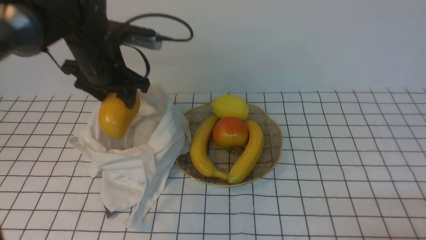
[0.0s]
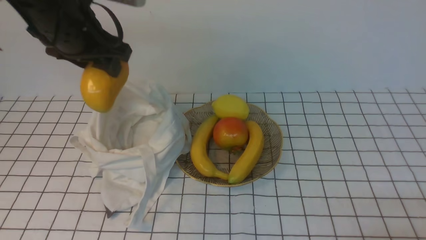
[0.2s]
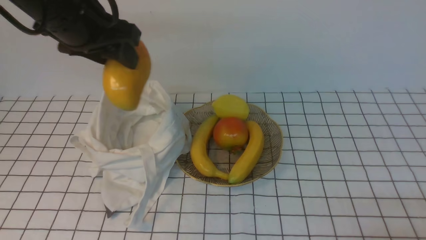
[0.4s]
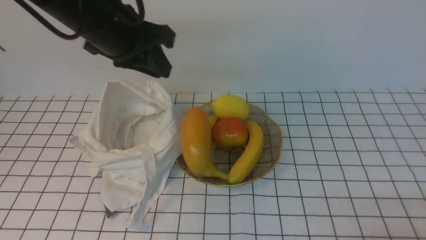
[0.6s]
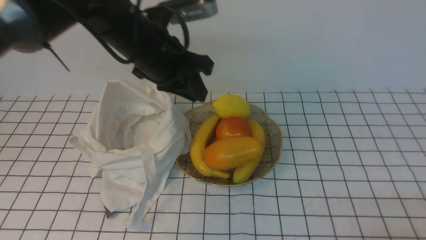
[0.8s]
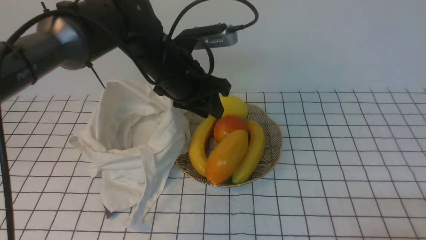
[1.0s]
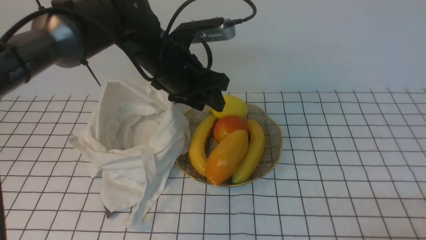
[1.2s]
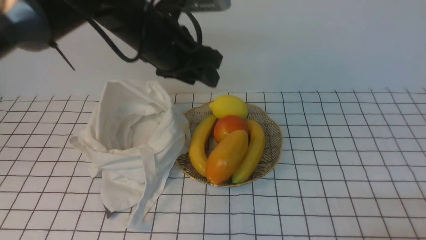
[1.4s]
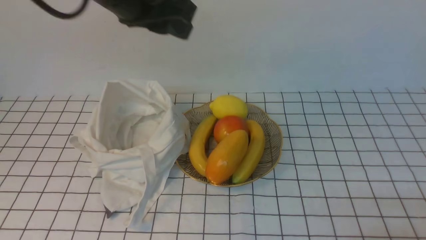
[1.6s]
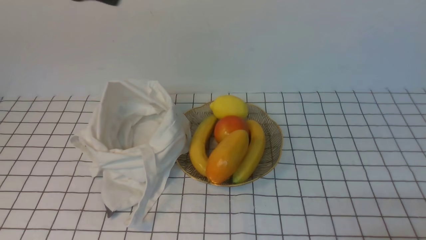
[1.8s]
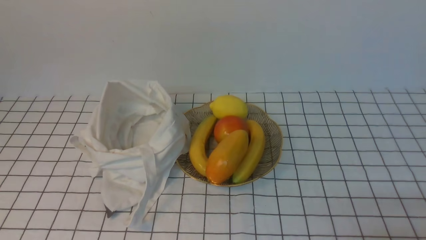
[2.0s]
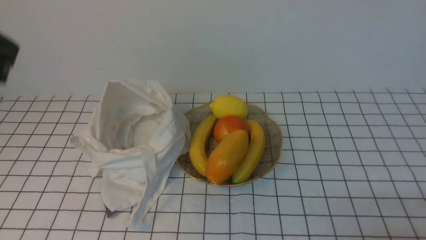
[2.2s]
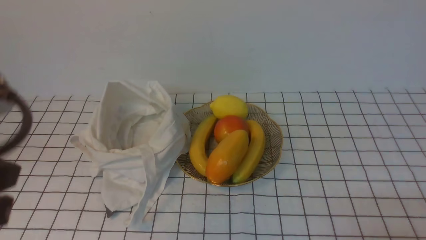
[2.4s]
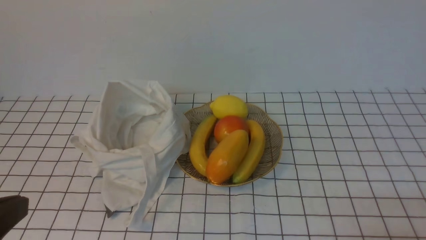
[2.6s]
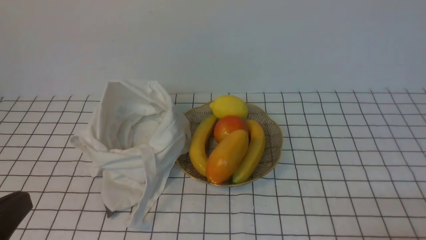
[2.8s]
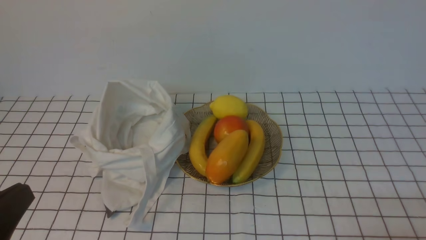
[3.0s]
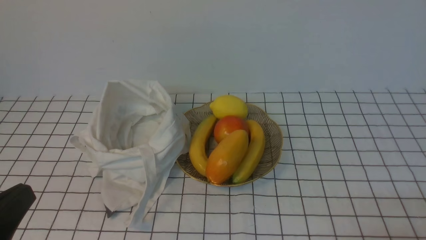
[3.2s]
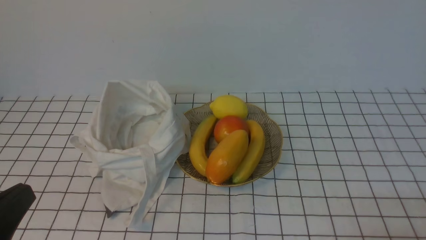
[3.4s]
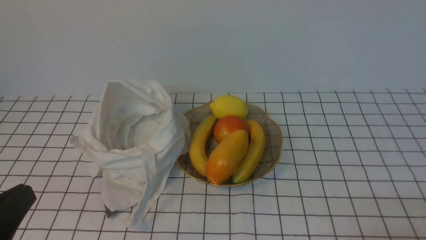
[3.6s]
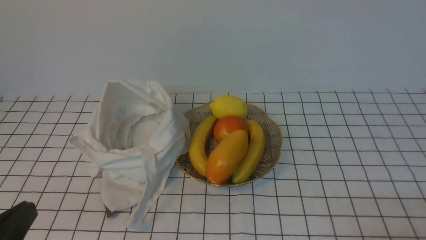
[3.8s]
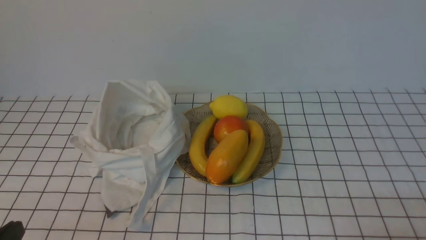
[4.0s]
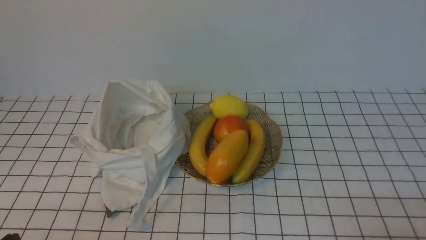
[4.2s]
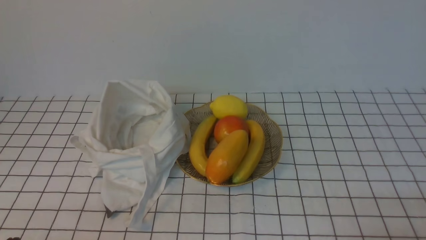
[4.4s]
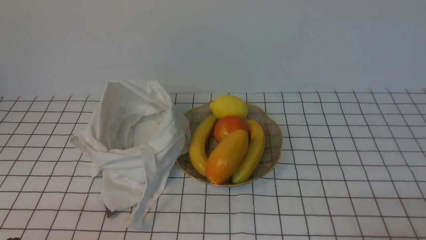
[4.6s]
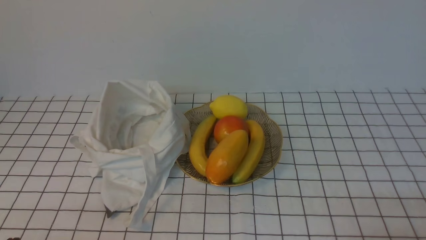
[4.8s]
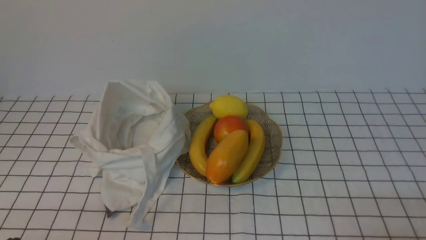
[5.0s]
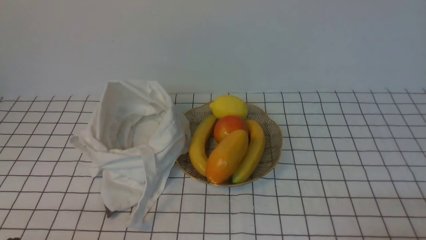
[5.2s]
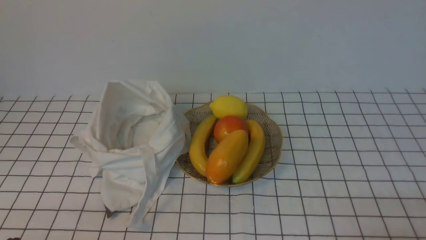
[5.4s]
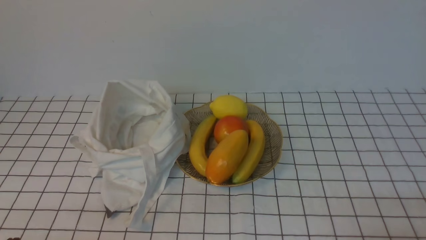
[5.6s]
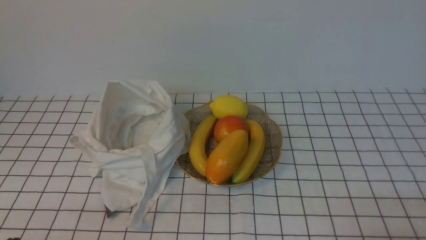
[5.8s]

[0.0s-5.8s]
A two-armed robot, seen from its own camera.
Step, 0.0s to 1.0s: use the left arm to put the mango into the empty plate on the right.
0.0s to 1.4s: The left gripper heads to the right and upward, covering roughly 10 cm, and closes, then opens again.
1.4s to 2.8s: The left gripper moves backward and to the left, some 35 cm, and closes up.
2.8s to 4.4s: The left gripper moves downward, about 15 cm.
4.4s to 5.8s: Neither gripper changes place.

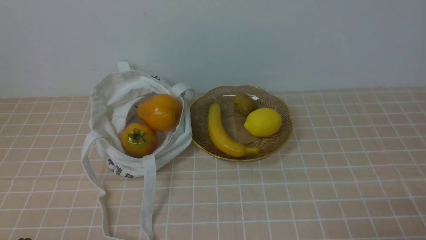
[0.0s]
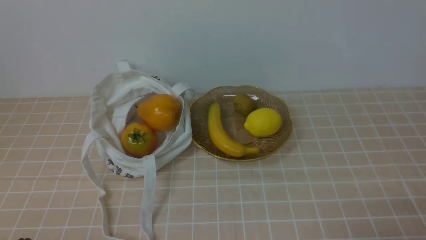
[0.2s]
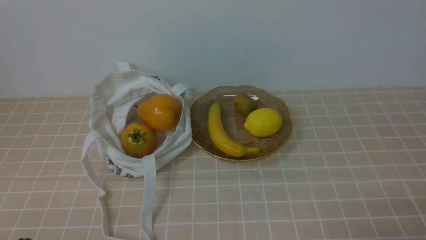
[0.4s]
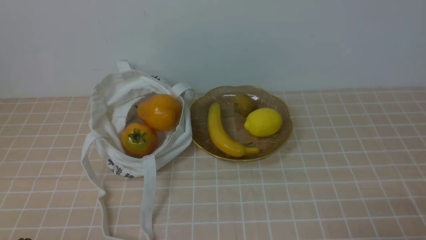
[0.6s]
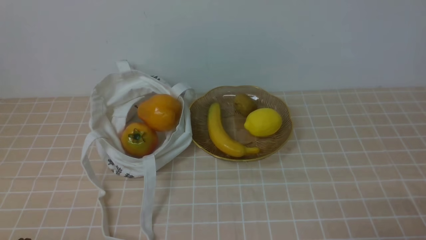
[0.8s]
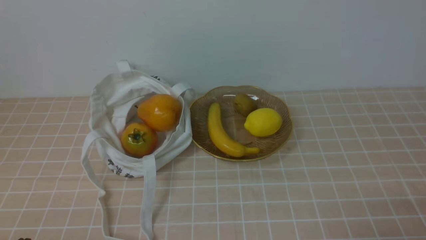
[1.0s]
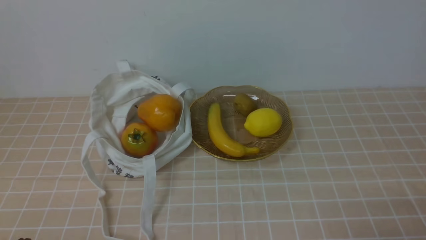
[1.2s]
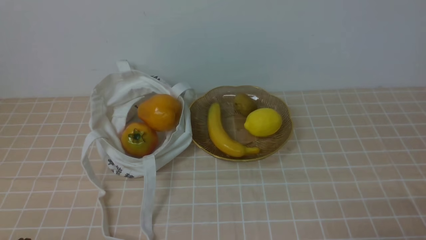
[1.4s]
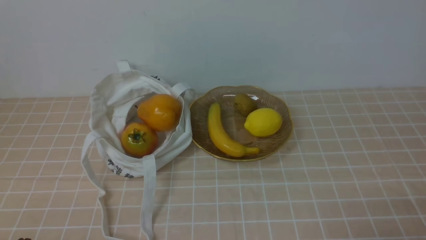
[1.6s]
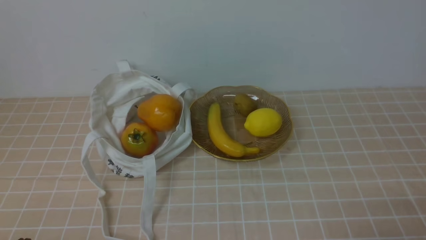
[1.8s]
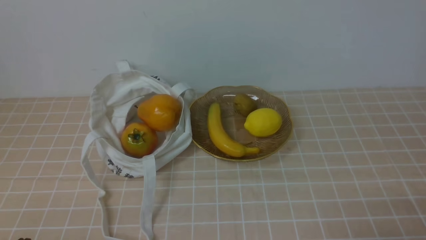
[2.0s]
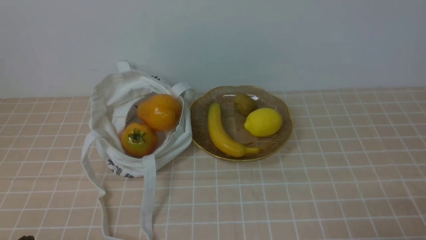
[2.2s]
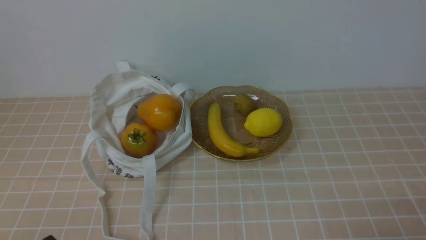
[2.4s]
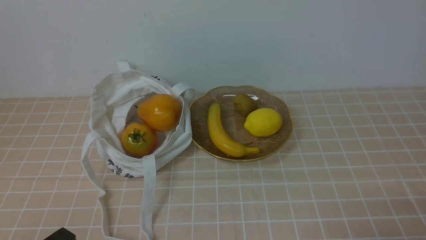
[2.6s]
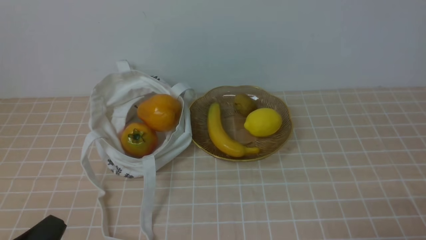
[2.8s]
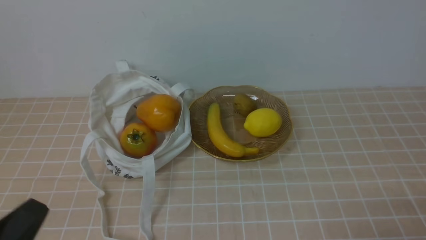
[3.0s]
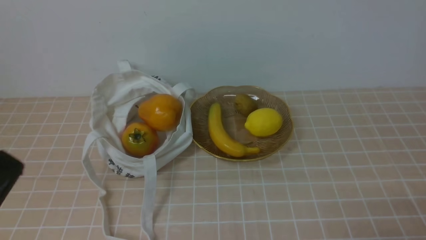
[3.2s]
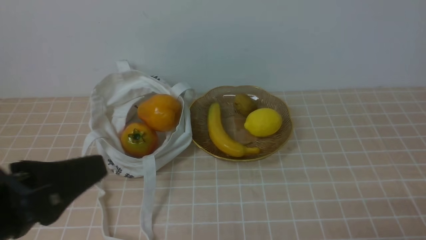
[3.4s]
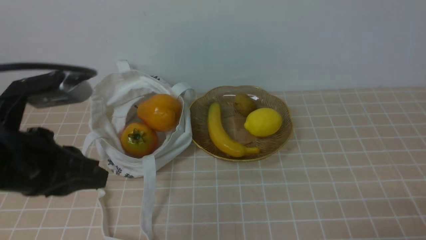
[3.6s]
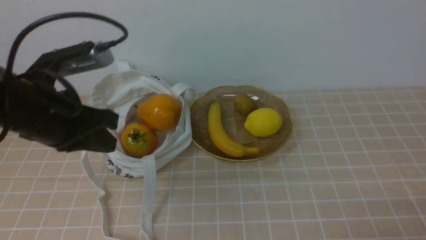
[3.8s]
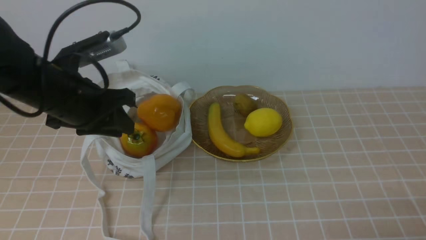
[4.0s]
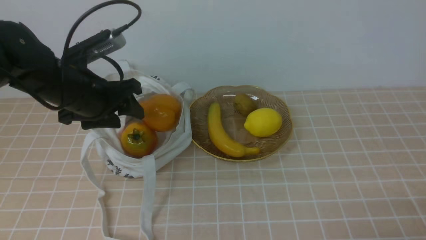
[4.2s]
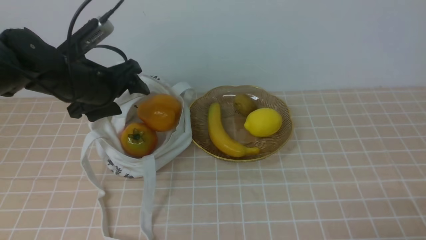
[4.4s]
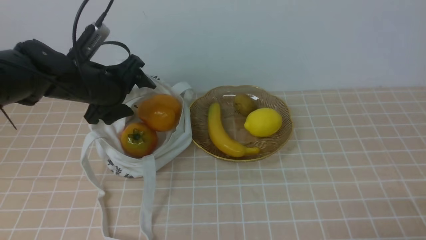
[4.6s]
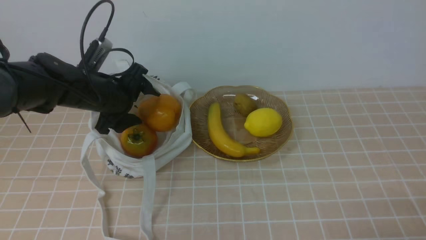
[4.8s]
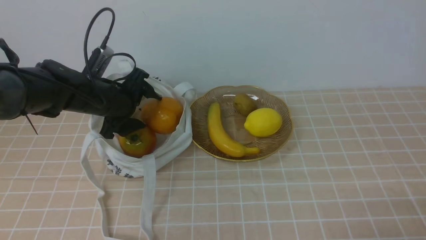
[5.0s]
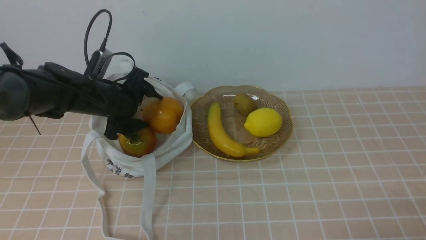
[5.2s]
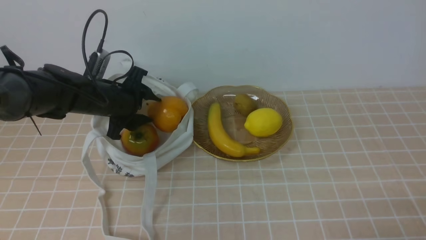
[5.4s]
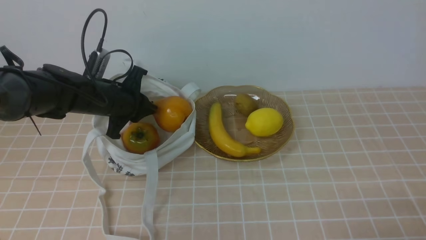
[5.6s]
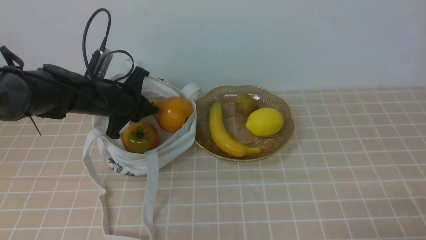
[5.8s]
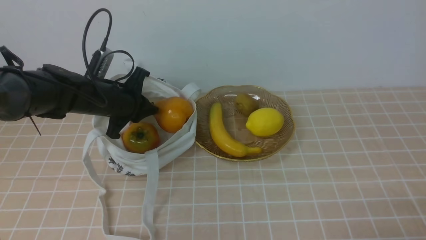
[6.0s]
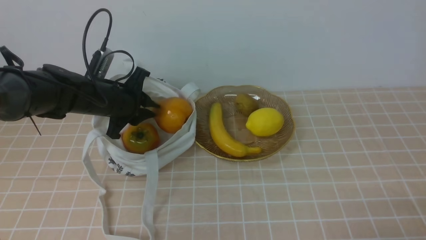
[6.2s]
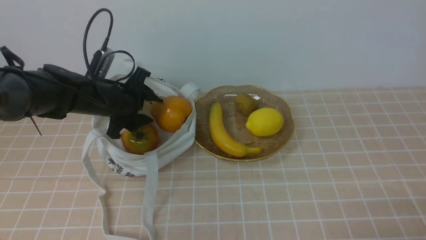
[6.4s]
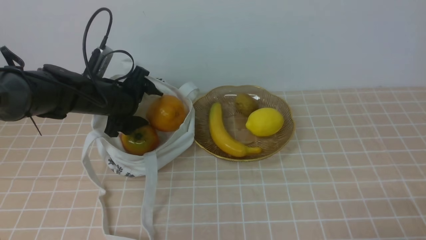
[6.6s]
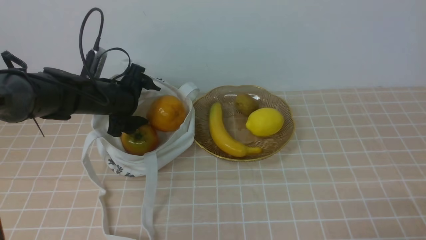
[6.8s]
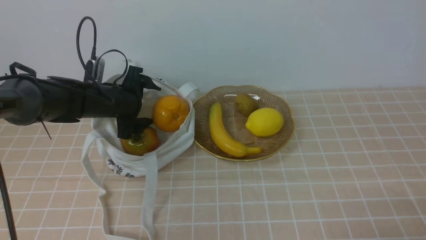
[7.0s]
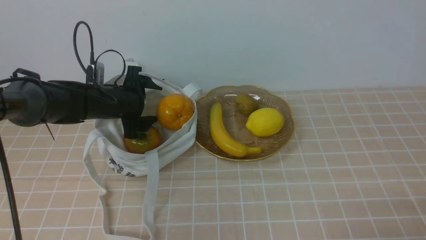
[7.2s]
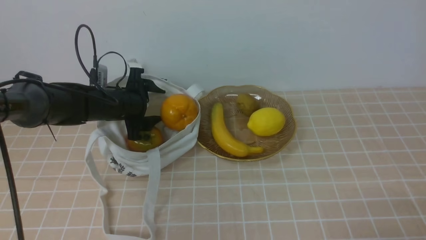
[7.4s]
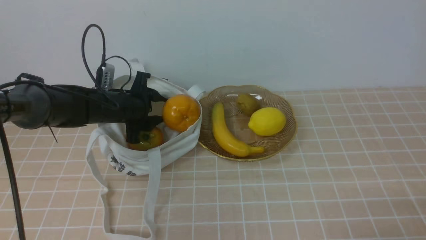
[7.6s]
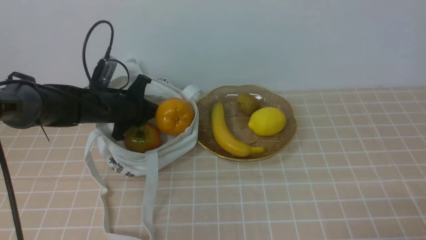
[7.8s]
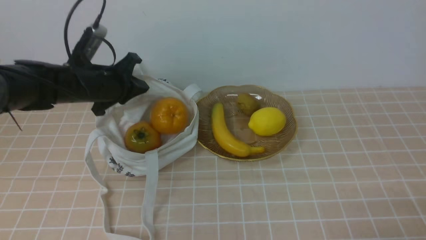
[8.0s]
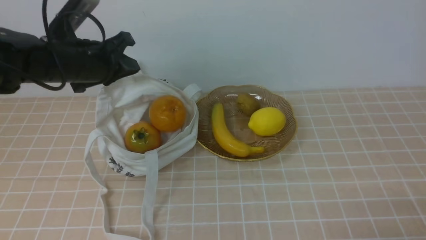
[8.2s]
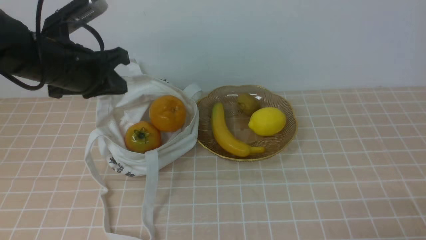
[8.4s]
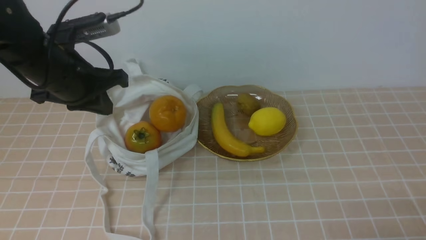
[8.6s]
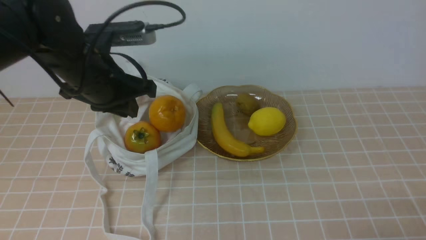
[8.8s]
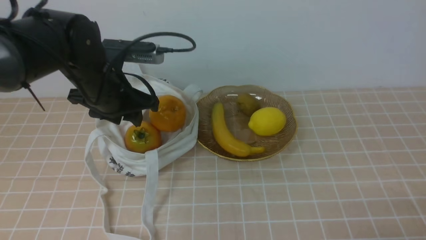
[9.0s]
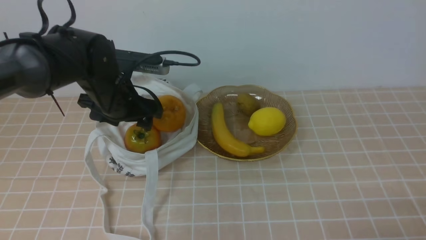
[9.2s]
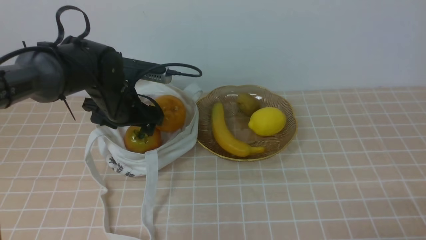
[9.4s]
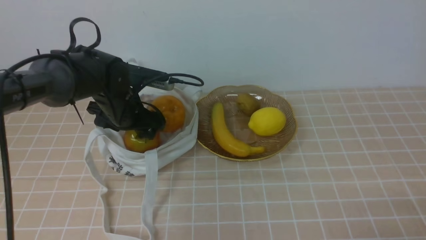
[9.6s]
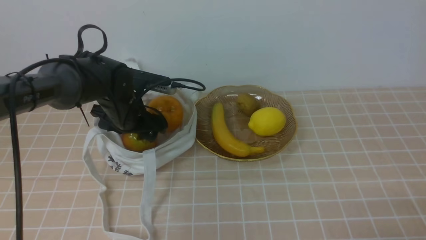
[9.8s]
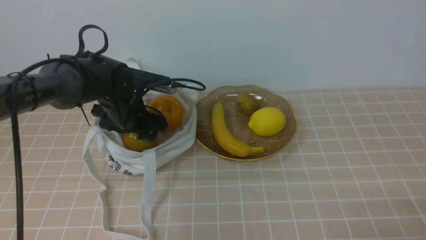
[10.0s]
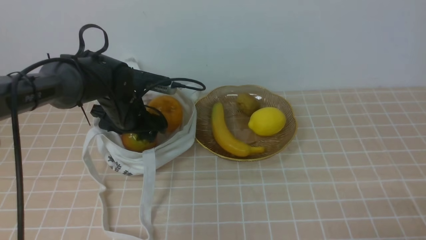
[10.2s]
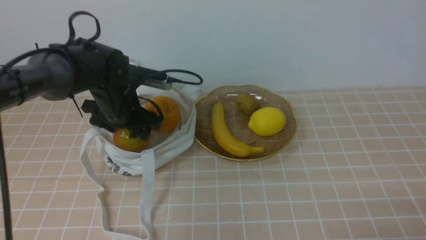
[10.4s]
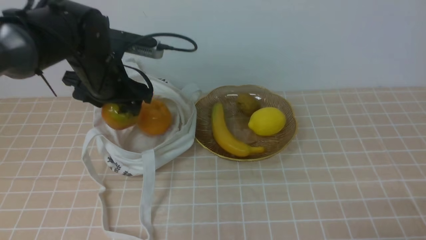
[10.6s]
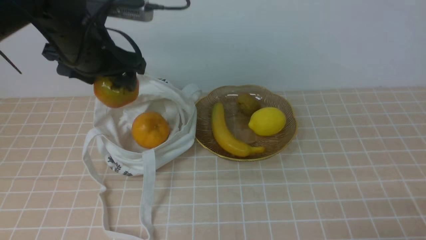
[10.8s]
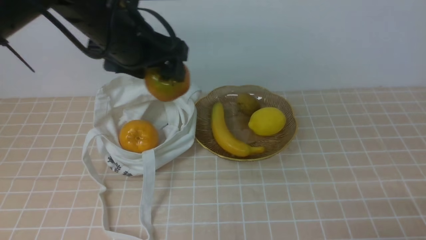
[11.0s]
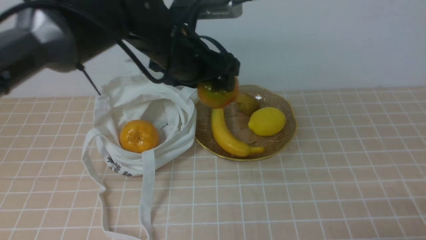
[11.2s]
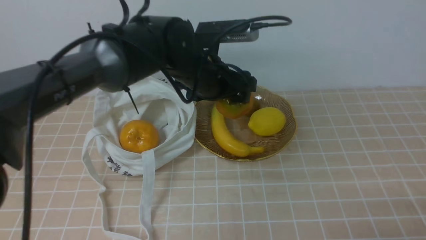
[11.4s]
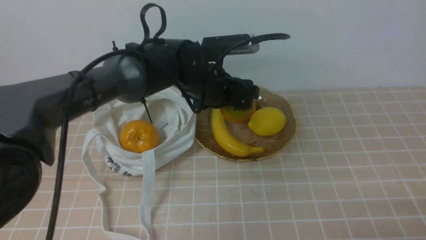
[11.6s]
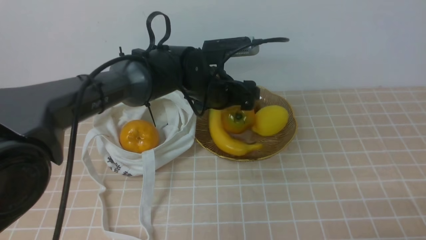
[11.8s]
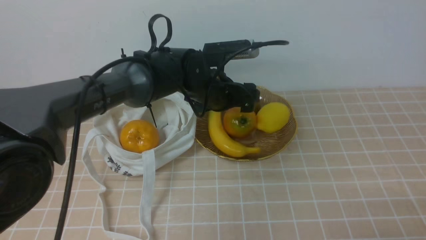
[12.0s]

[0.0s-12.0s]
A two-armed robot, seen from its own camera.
Step, 0.0s to 10.2s: use the left arm to grab a pomegranate from the bag.
Step, 10.4s to 12.0s: use the left arm to put the pomegranate into the empty plate on the right.
1.6s to 3.0s: The left gripper moves about 5 cm.
3.0s to 4.4s: The left gripper moves forward, approximately 30 cm, and opens its fingers.
4.4s to 6.0s: The left gripper shifts roughly 10 cm downward and forward, and closes.
6.0s to 7.6s: The left gripper opens its fingers.
7.6s to 9.0s: The left gripper is displaced upward and backward by about 15 cm.
9.0s to 10.4s: The left gripper is displaced downward by roughly 10 cm, and opens.
10.4s to 12.0s: The left gripper heads to the right, covering approximately 15 cm.
